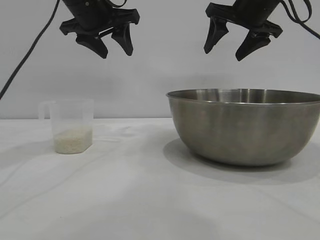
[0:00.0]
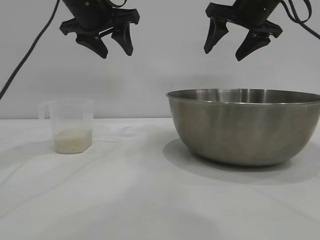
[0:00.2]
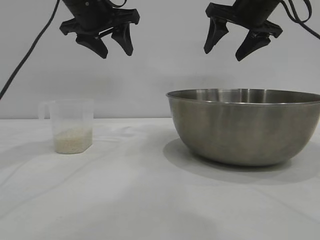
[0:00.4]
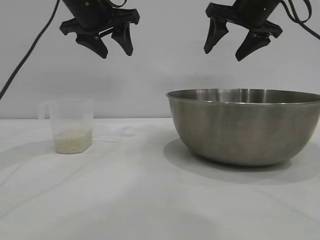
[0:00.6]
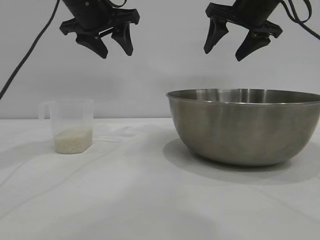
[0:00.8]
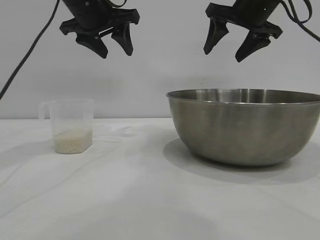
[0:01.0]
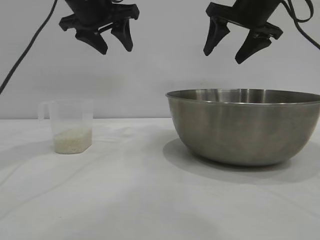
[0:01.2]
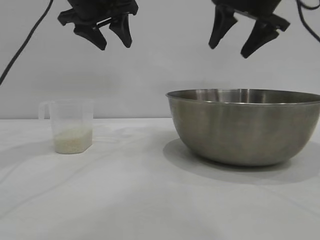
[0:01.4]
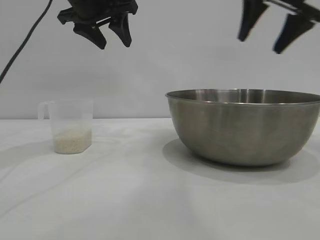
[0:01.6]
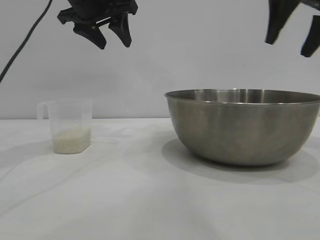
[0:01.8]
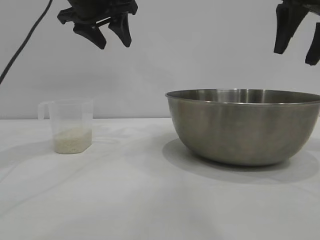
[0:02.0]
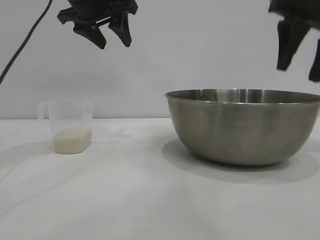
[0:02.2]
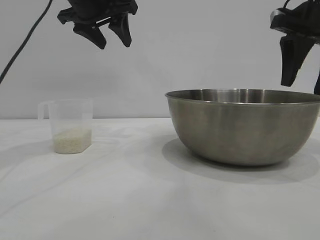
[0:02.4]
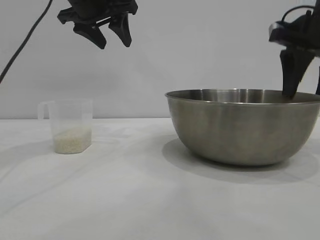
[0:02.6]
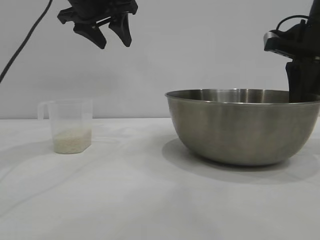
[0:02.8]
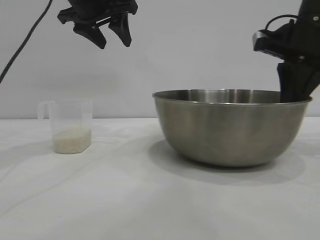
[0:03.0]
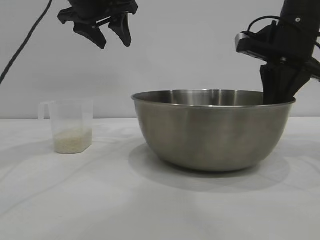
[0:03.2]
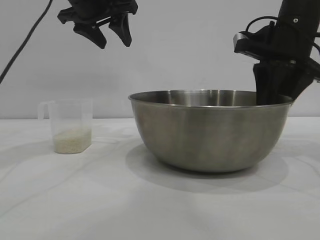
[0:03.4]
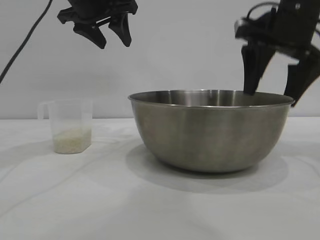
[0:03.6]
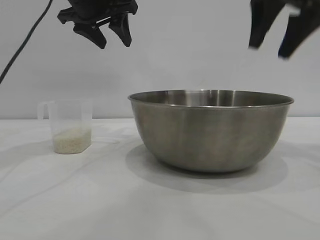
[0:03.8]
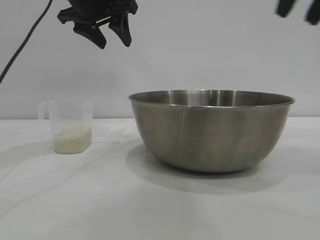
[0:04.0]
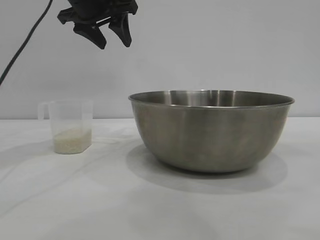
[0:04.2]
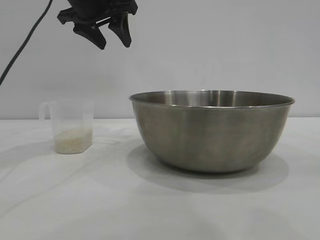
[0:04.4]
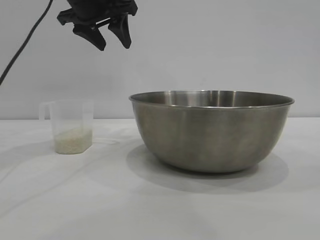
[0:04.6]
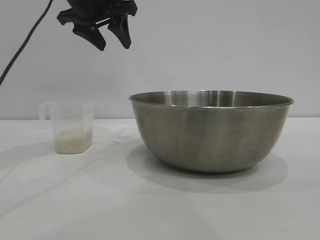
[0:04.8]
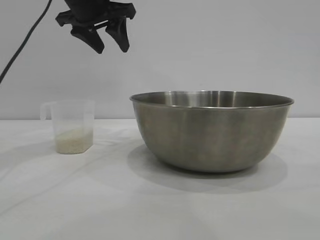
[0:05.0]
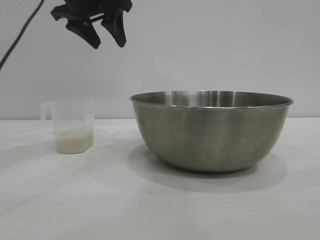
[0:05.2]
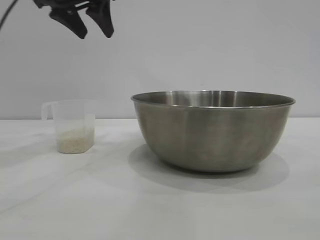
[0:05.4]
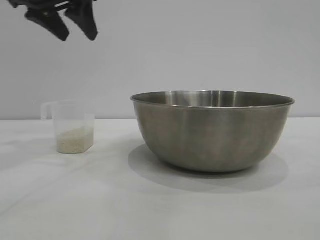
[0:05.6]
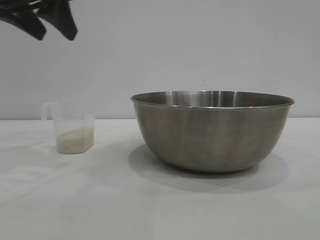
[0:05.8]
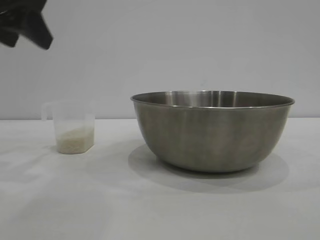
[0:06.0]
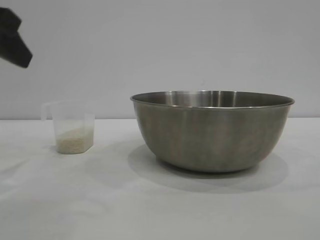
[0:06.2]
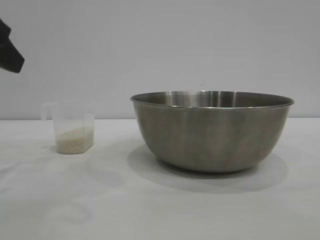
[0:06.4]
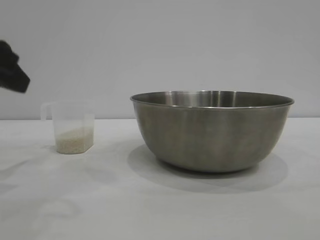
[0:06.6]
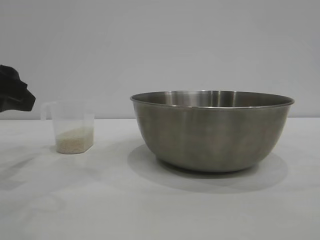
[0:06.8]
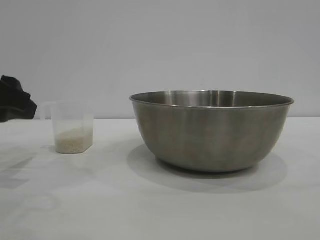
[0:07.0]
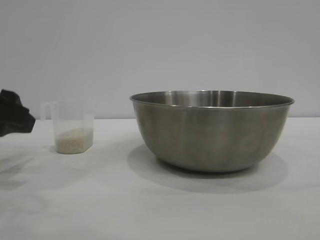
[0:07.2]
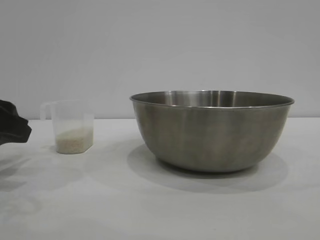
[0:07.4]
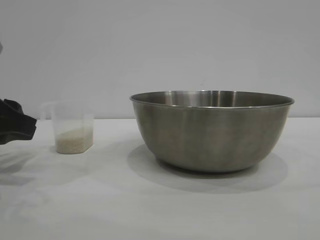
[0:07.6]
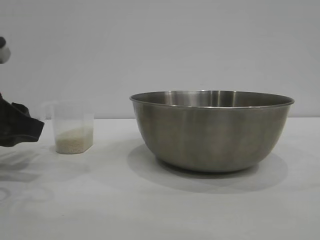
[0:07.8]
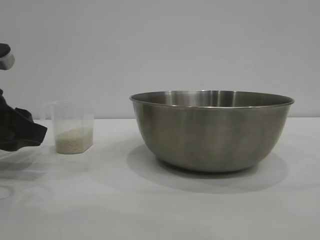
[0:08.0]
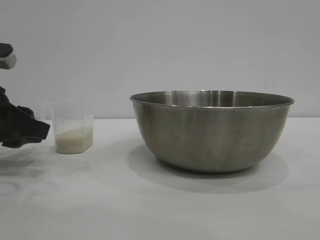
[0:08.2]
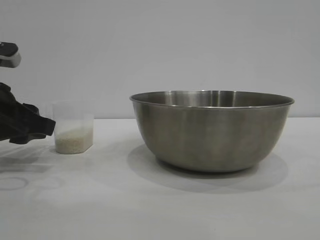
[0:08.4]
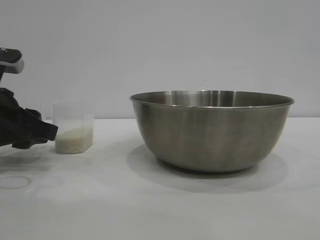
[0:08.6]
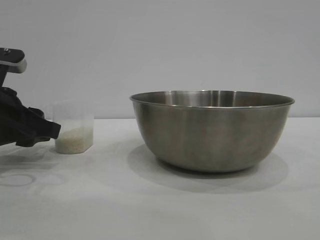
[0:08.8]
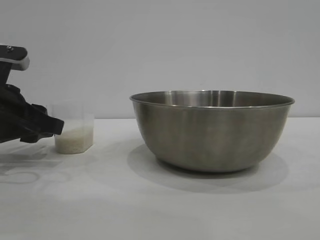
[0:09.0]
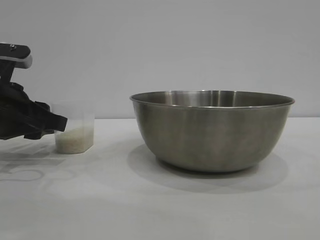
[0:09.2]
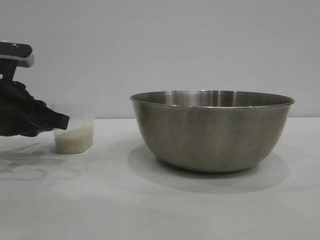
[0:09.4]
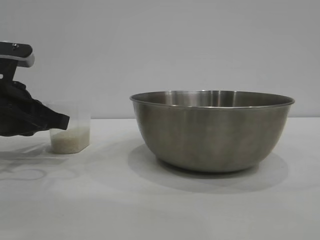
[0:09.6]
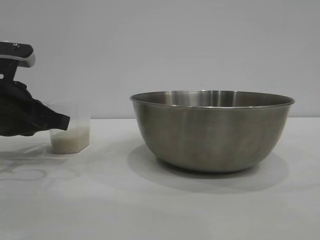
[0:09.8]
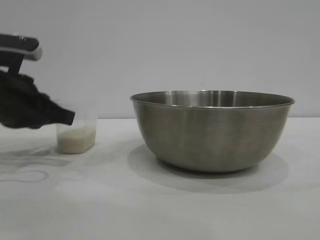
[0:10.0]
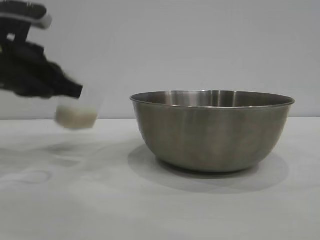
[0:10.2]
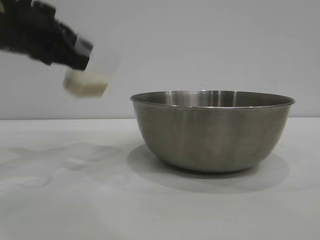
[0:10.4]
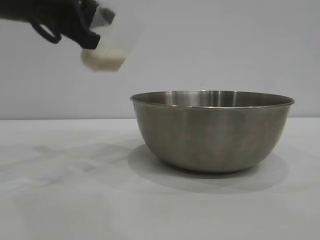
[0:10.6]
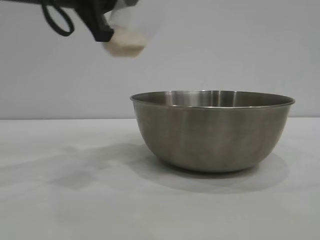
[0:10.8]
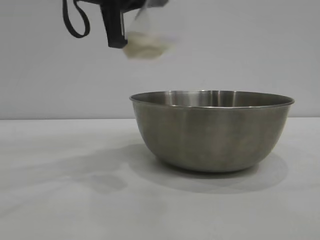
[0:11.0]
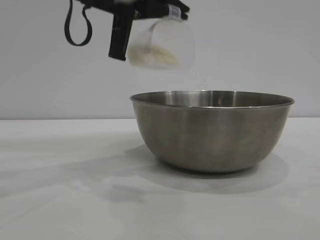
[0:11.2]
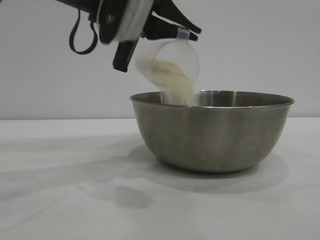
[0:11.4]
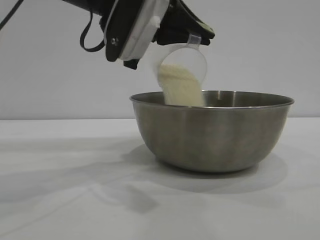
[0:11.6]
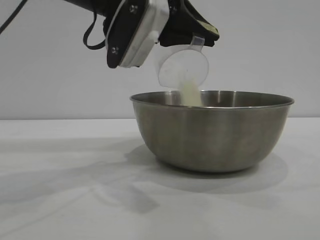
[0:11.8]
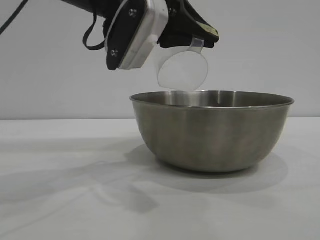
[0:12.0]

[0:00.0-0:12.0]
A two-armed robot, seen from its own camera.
Task of the whole recording: the right gripper grasp the rice container and place it in the center of the table, the left gripper grasp the rice scoop and pour the rice into the rice container.
Step, 0:00.0 to 0:03.8: Move the bowl to the center of view with the right gripper.
Step, 0:04.0 to 0:10.0: Pick up the cup with rice in it with the left gripper.

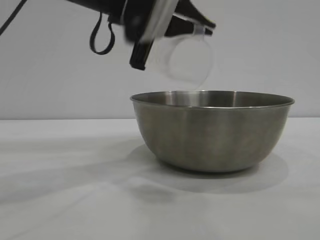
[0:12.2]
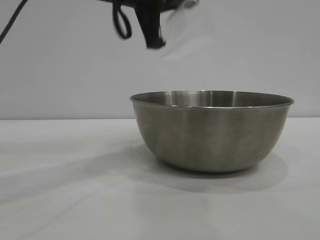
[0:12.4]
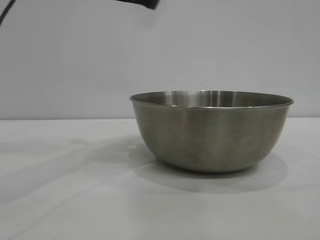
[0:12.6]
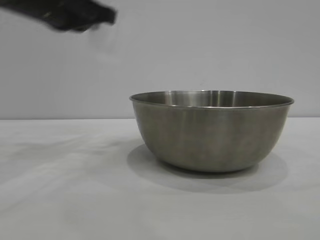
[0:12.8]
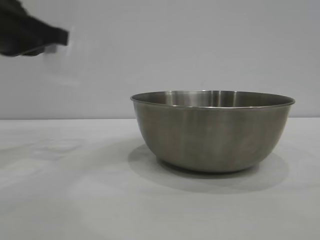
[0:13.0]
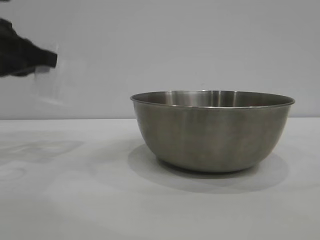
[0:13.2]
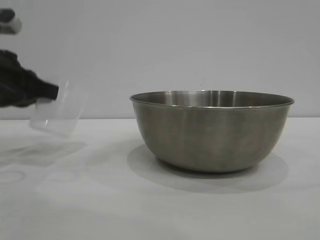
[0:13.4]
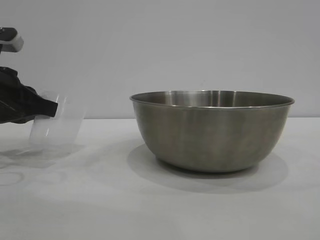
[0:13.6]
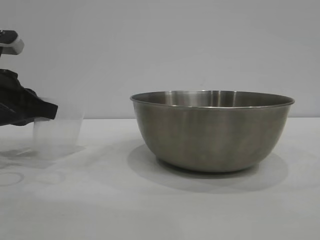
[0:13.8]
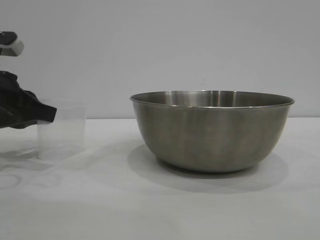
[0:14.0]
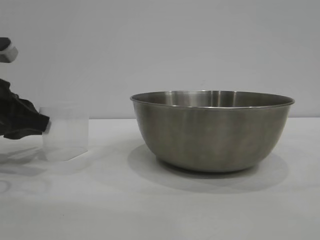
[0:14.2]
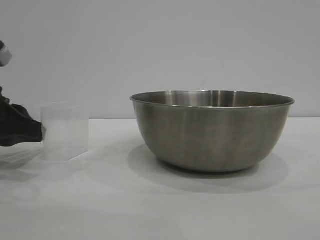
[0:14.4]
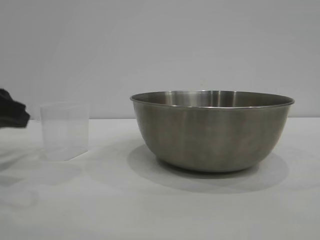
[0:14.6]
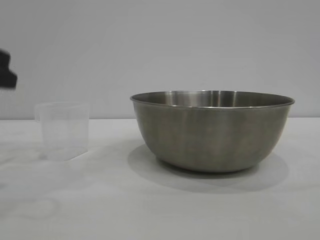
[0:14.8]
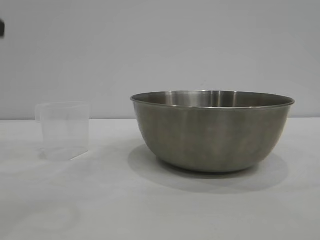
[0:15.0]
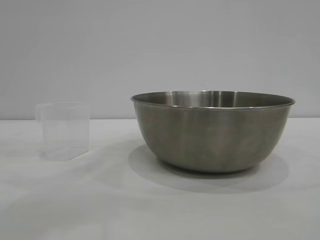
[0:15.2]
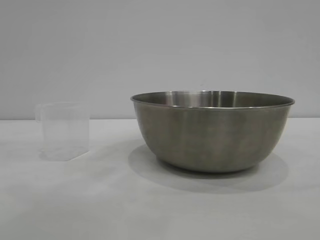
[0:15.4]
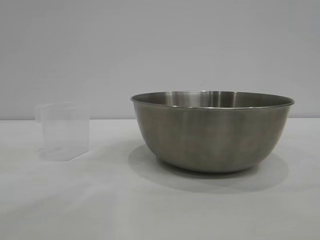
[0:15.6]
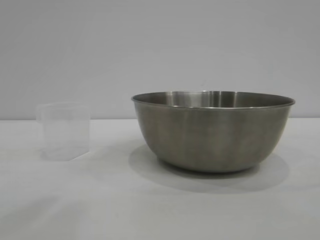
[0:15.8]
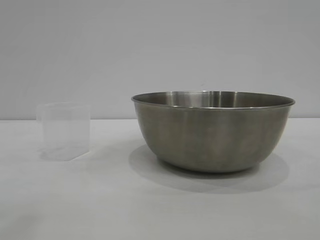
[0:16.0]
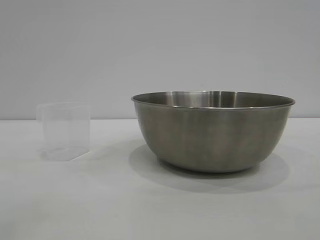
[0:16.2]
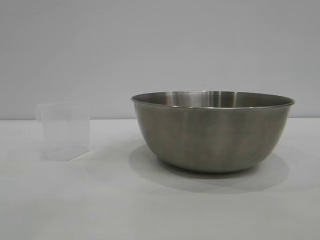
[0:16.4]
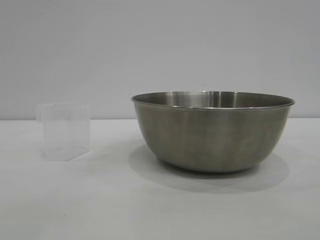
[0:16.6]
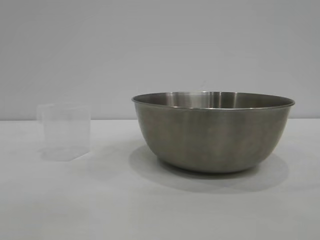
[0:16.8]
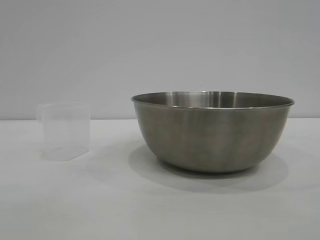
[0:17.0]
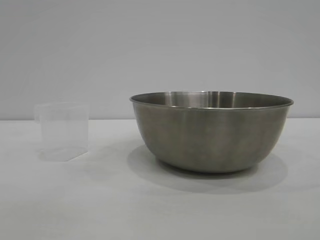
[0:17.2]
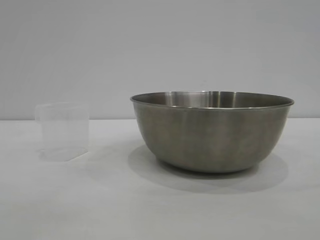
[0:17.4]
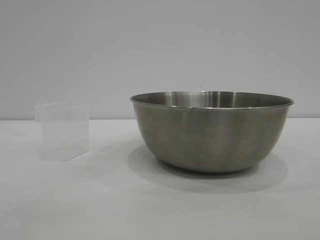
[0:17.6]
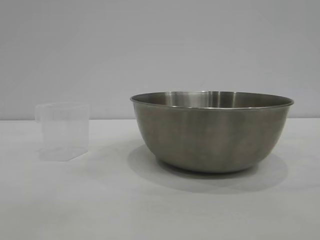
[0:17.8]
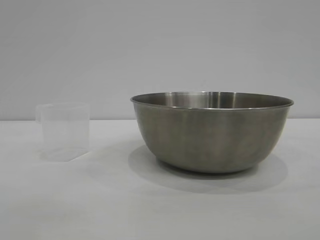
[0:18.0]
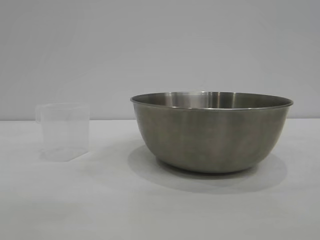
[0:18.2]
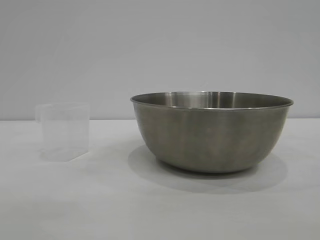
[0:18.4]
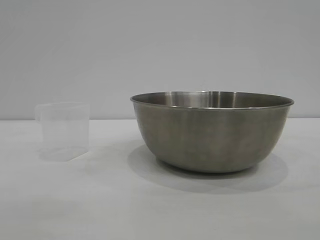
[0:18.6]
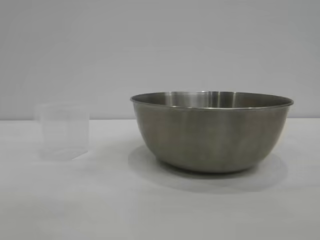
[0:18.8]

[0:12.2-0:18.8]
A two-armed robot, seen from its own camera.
Task of the whole recording: the right gripper grasp the rice container and place it in the center of the table, the left gripper grasp the rice scoop and pour the rice into the rice container.
Step, 0:12.4 to 0:14.2: Place the cup on the table with the left gripper.
